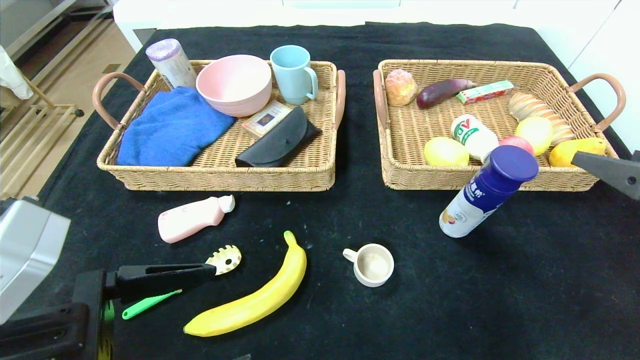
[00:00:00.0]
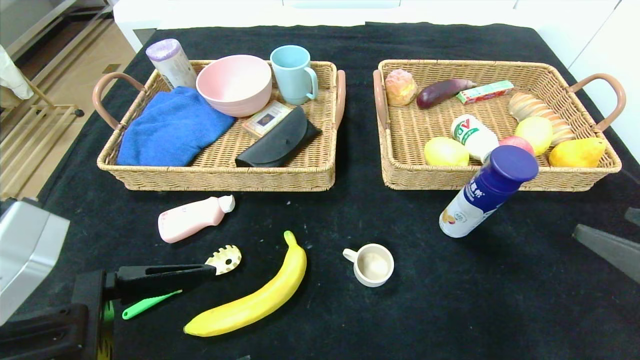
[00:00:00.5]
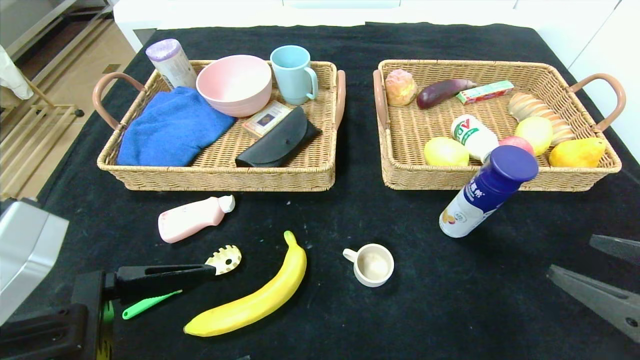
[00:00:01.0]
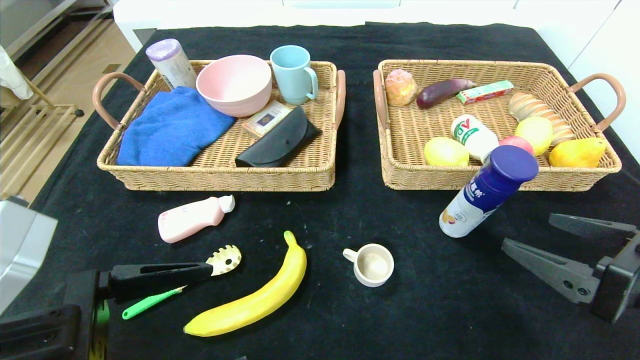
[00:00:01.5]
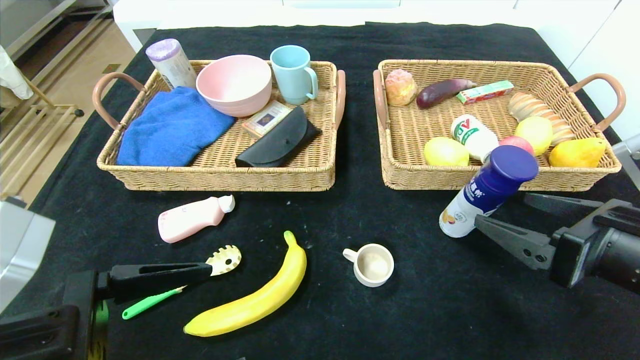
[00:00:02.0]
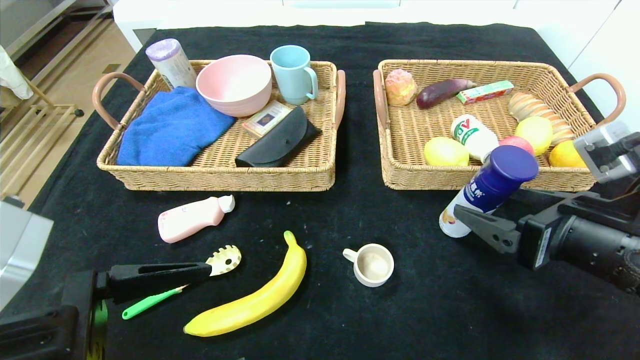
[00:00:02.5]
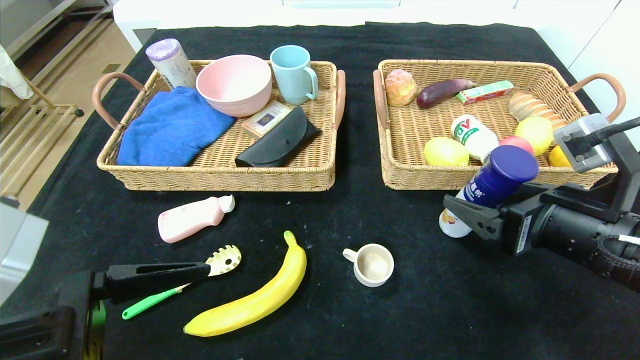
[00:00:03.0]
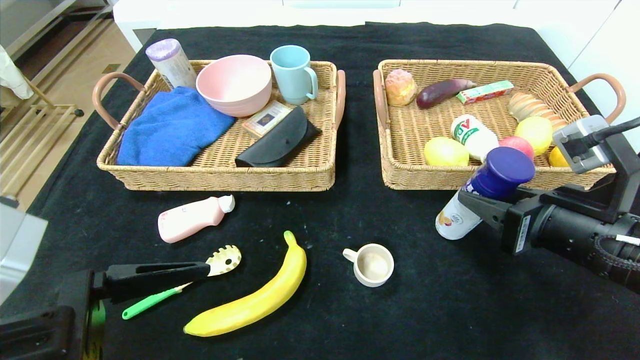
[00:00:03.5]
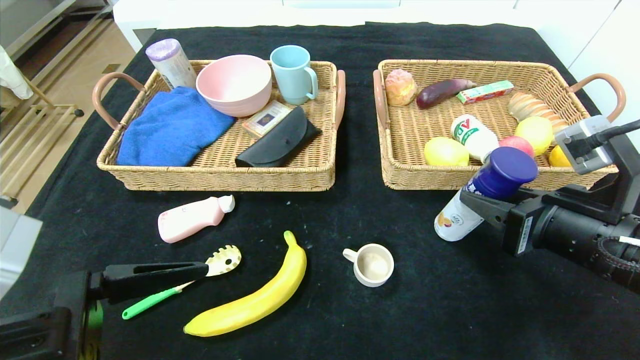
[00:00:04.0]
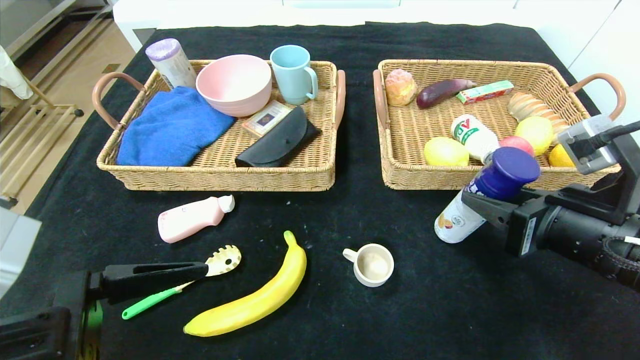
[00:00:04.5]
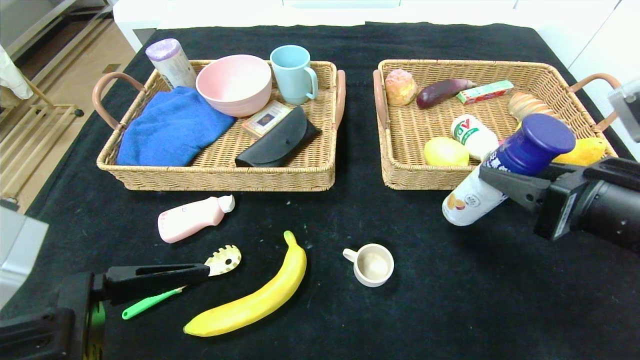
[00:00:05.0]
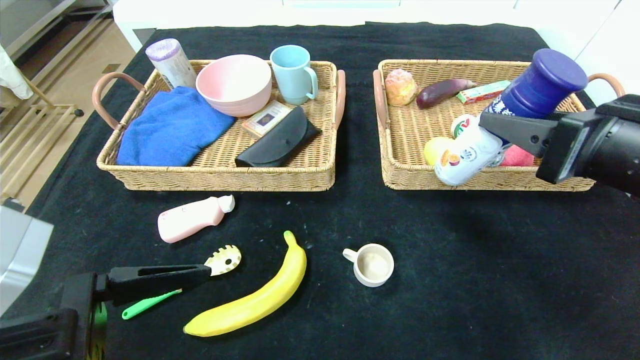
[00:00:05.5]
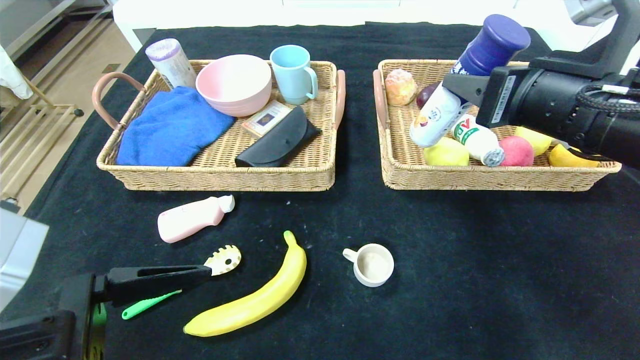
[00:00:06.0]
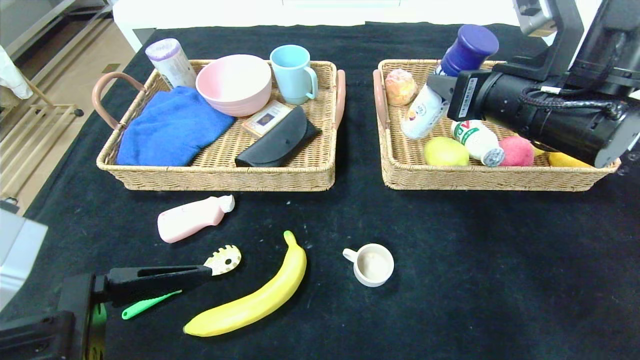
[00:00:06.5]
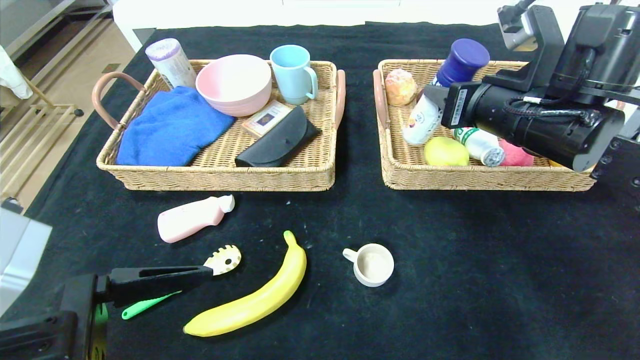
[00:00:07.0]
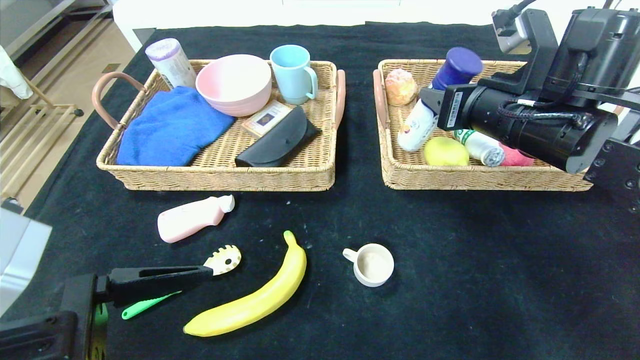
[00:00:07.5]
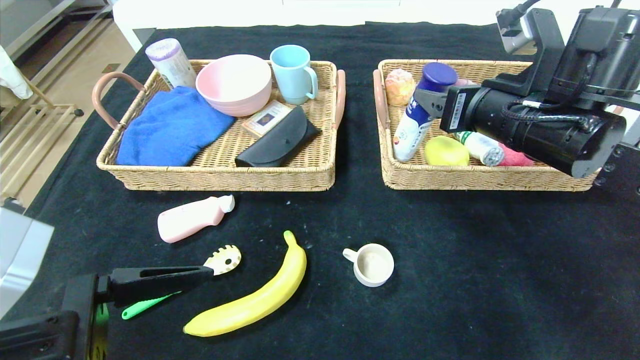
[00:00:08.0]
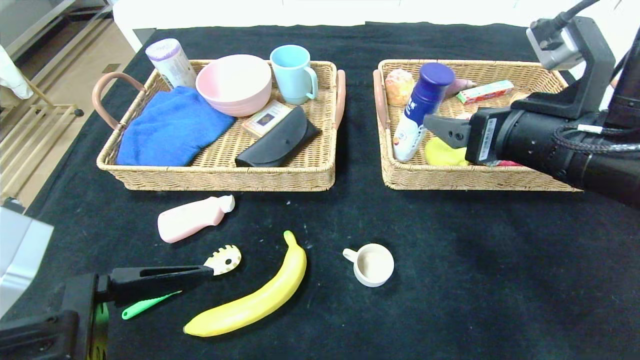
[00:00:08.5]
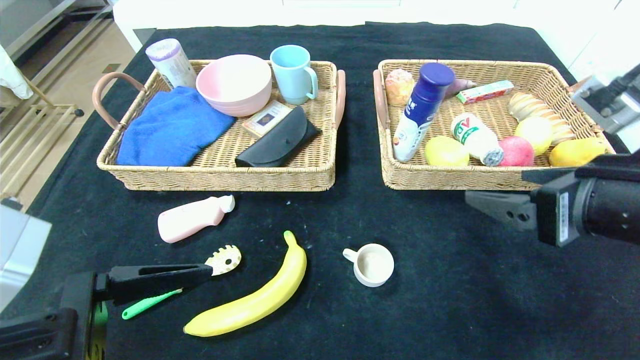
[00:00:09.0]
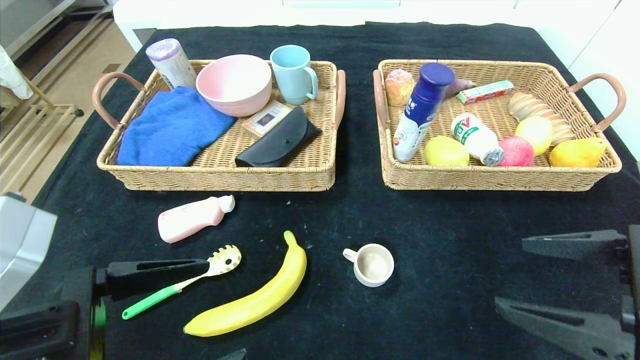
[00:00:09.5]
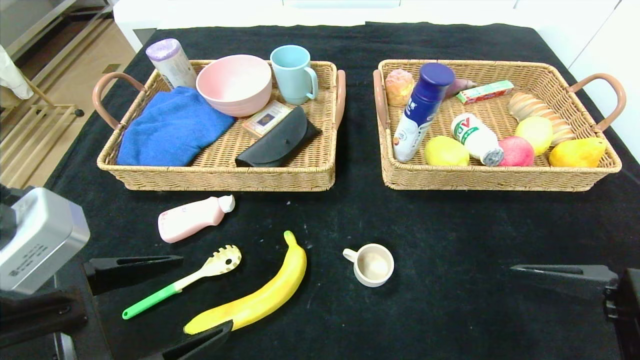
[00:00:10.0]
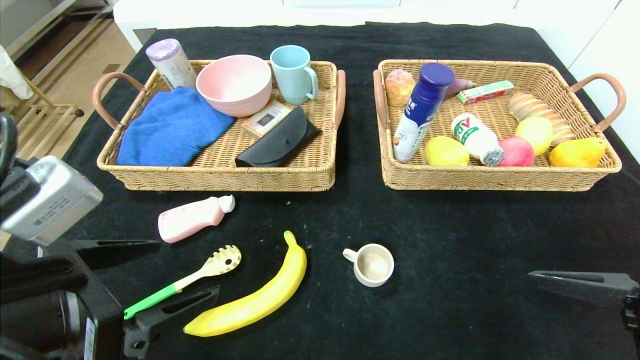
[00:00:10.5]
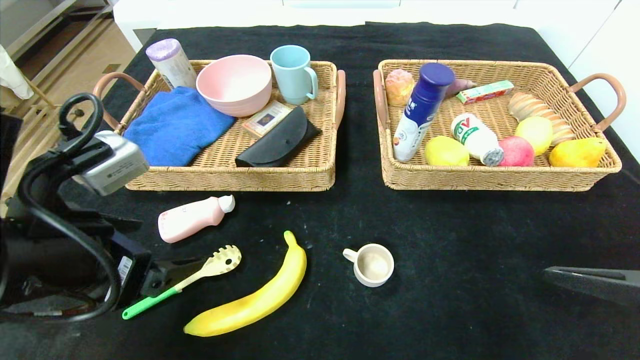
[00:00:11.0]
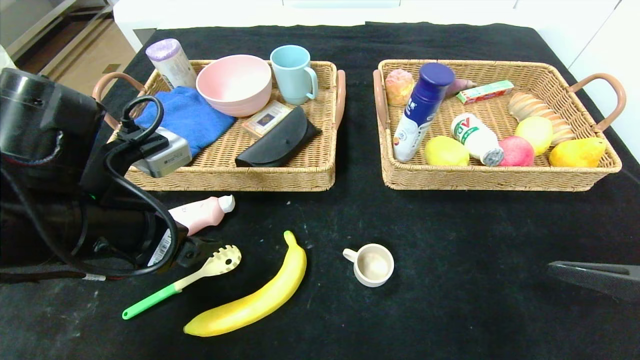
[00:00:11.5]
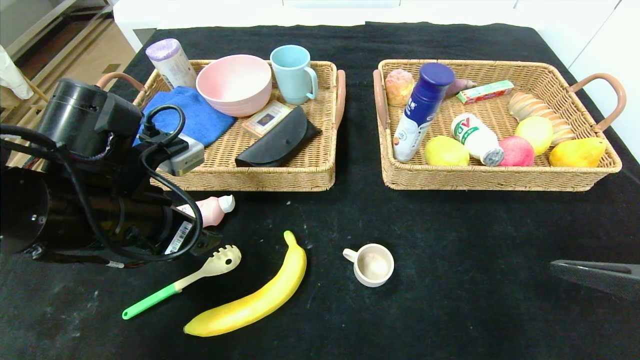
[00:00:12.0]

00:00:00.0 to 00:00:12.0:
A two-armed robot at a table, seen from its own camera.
Step, 00:00:01.0 to 00:00:09.0: Pick up the yogurt and put it in the right basket.
00:00:00.0 to 00:00:02.0: The right gripper goes approximately 5 cm to the left.
00:00:02.0 to 00:00:04.0: The right gripper closes up.
00:00:04.0 to 00:00:06.0: The right gripper is displaced upward by about 10 cm.
00:00:06.0 to 00:00:08.0: The right gripper shifts by about 5 cm, and opens its fingers.
00:00:08.0 to 00:00:10.0: The right gripper heads backward and downward, covering some 20 cm.
00:00:10.0 to 00:00:12.0: The left gripper moves forward, approximately 15 cm.

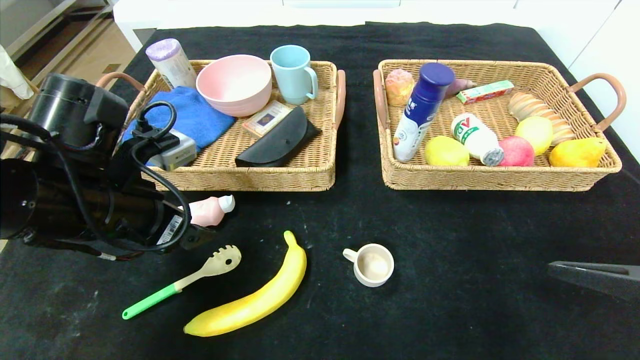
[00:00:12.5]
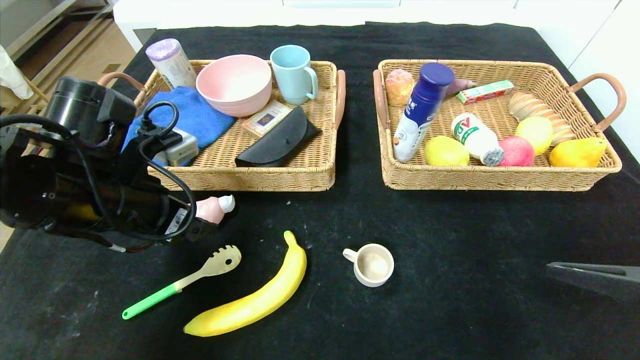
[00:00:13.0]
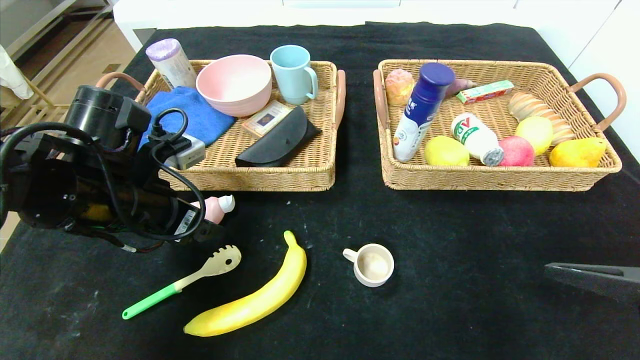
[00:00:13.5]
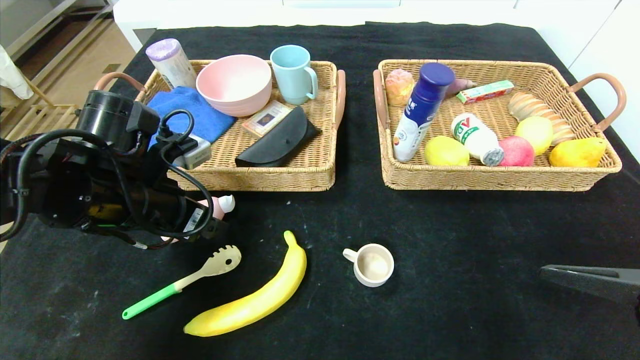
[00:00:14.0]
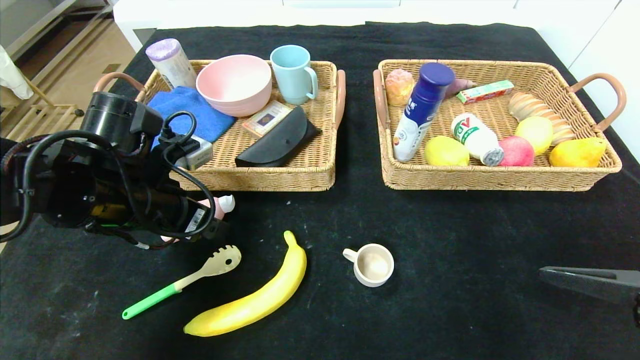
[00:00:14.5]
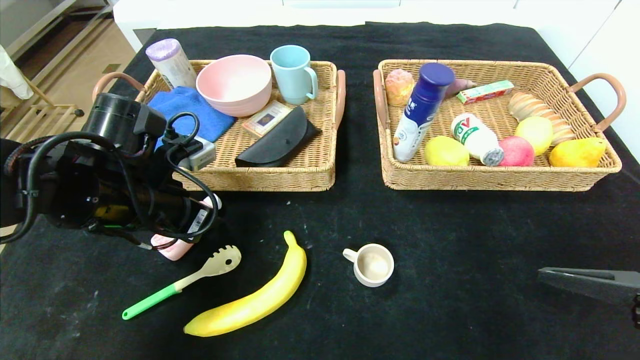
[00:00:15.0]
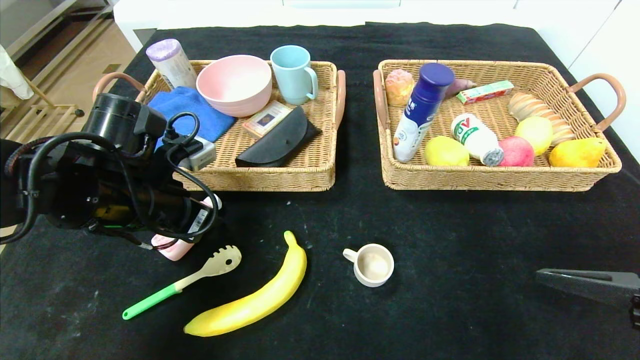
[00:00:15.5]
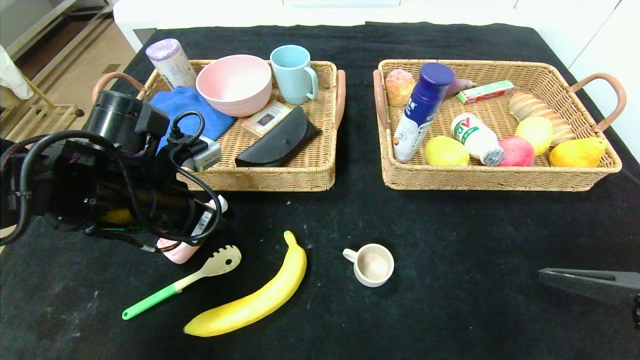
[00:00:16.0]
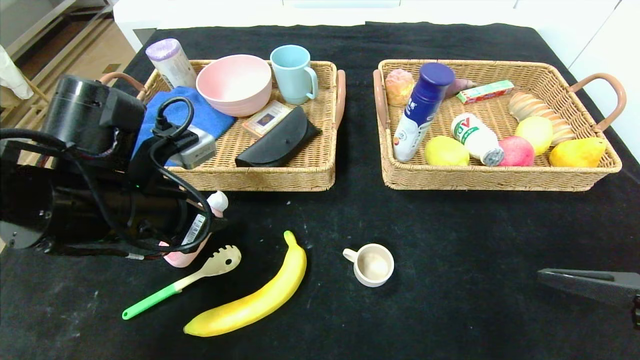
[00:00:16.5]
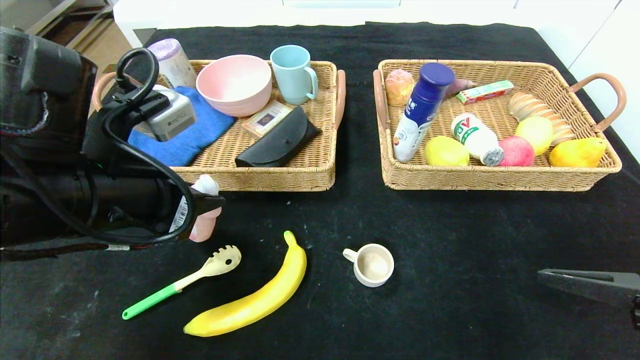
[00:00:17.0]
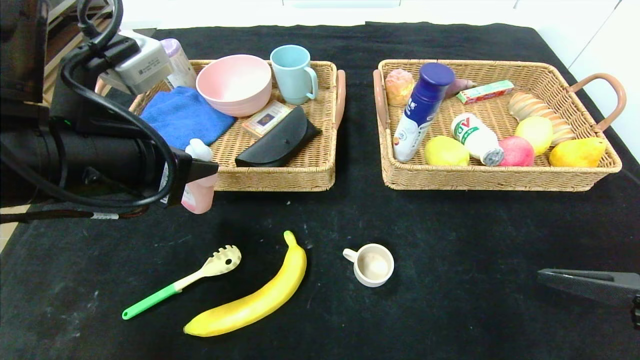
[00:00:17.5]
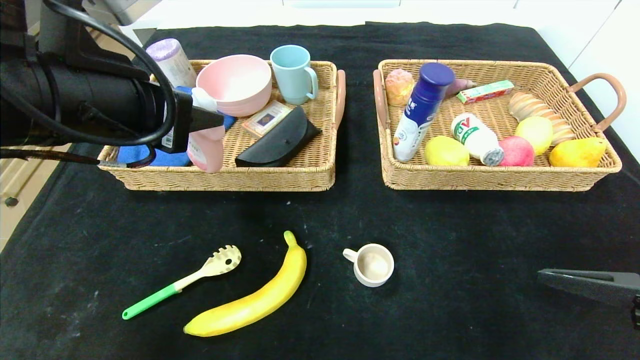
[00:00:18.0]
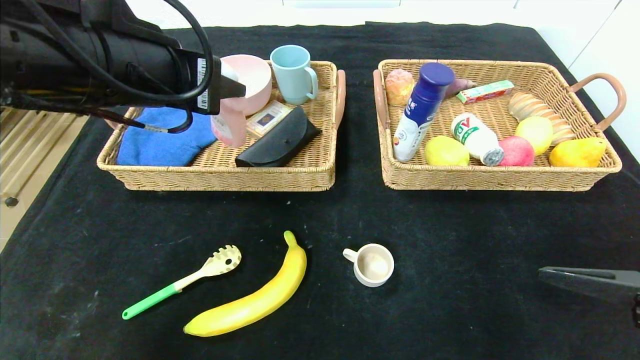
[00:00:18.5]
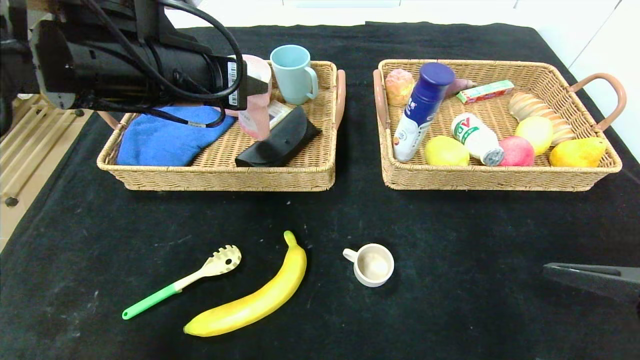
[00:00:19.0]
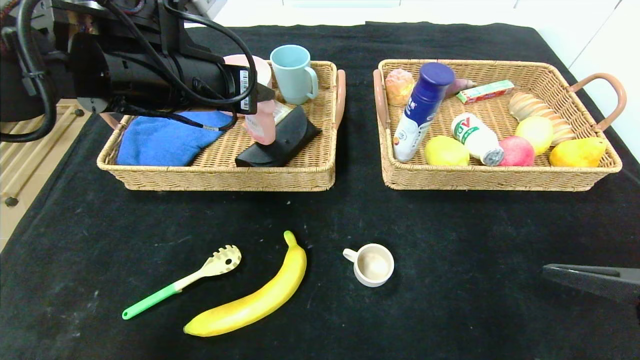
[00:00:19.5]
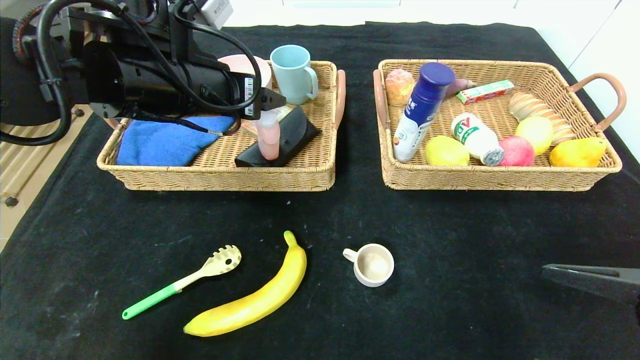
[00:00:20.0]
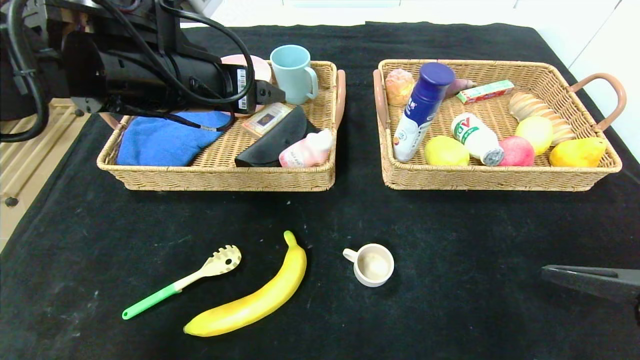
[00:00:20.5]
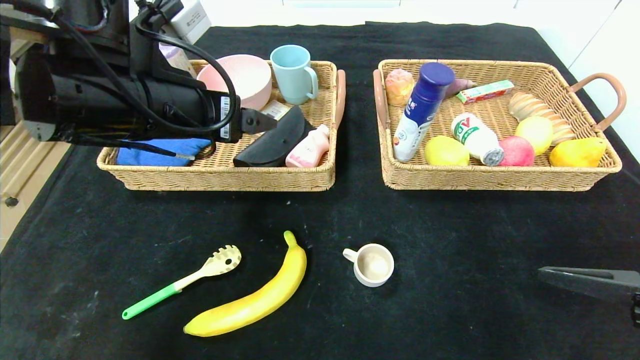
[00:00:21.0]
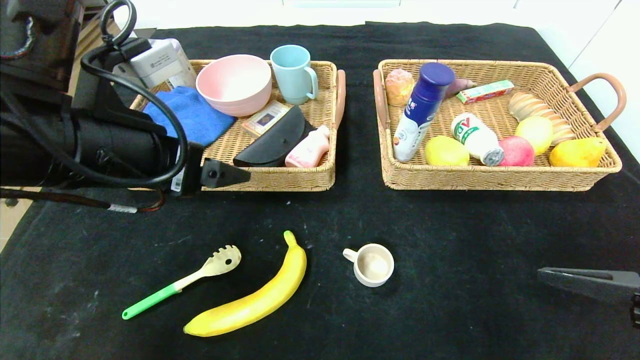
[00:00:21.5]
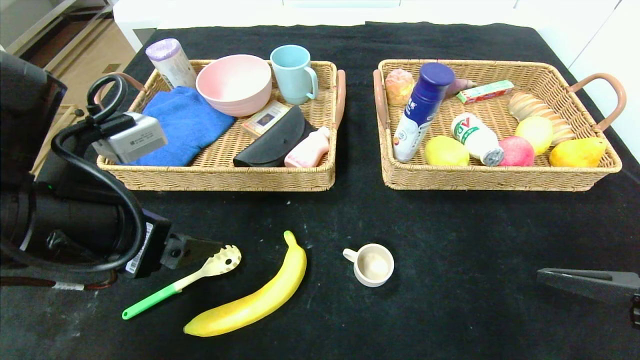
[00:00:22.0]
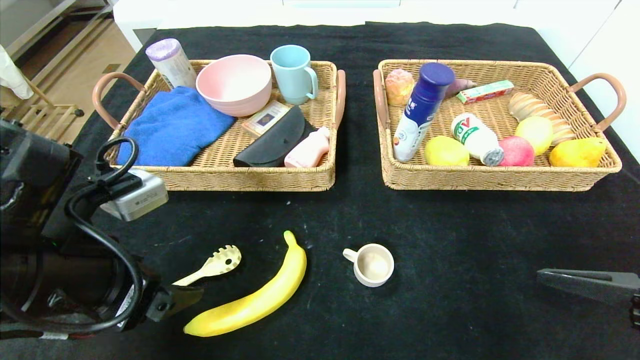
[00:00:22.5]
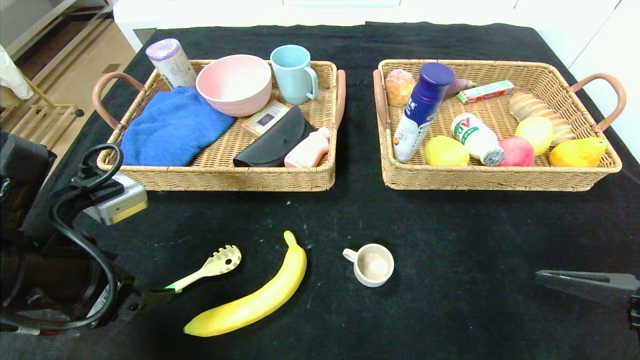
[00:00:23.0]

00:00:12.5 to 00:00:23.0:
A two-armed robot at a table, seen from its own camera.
Step, 00:00:12.5 to 00:00:21.5: Pick up the washing liquid and put it in the left basket.
00:00:12.5 to 00:00:14.5: The grippers make only small movements.
00:00:14.5 to 00:00:16.5: The left gripper closes.
00:00:16.5 to 00:00:19.0: The left gripper is displaced upward and forward by roughly 10 cm.
00:00:19.0 to 00:00:21.0: The left gripper opens its fingers.
00:00:21.0 to 00:00:23.0: The left gripper heads backward, downward and to the left, covering some 15 cm.
